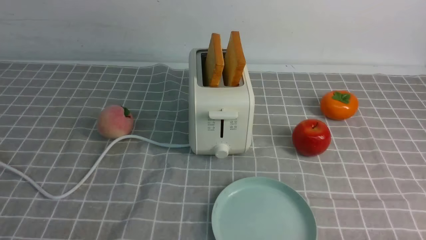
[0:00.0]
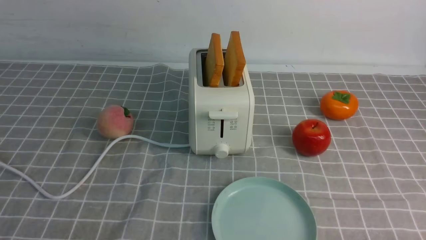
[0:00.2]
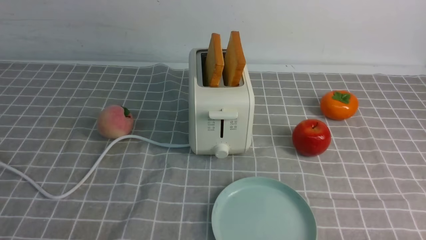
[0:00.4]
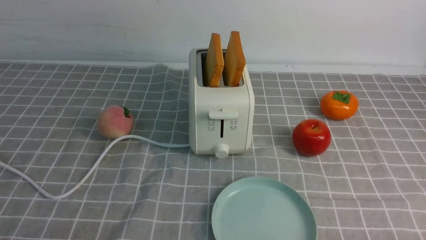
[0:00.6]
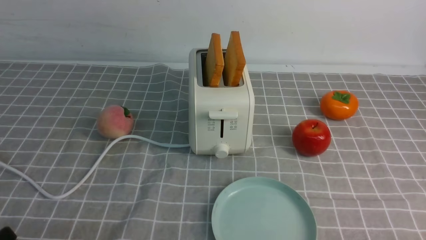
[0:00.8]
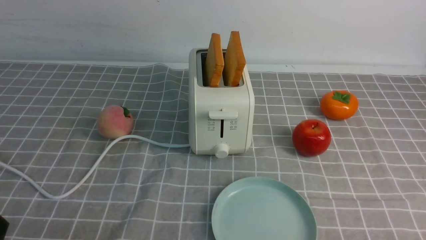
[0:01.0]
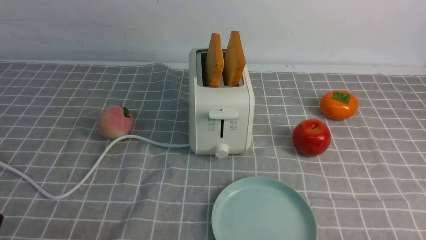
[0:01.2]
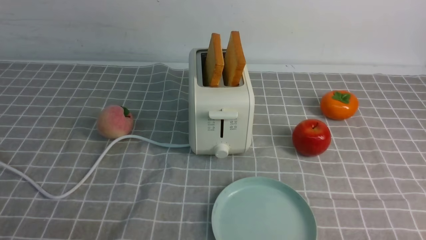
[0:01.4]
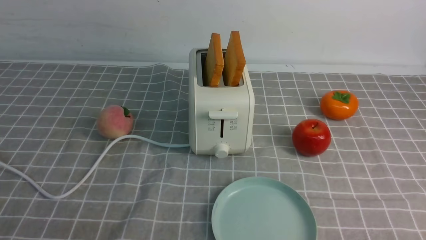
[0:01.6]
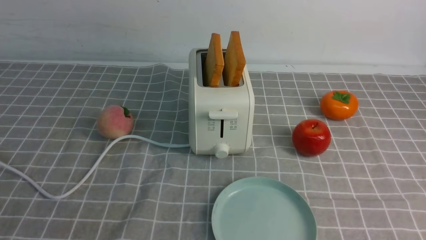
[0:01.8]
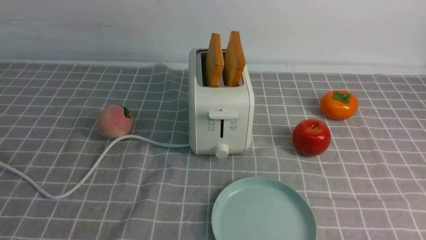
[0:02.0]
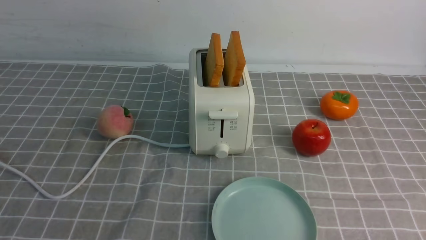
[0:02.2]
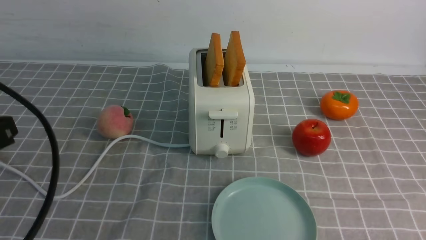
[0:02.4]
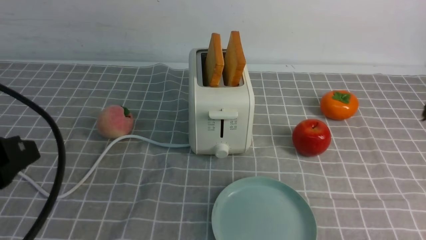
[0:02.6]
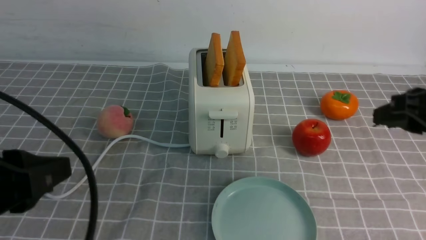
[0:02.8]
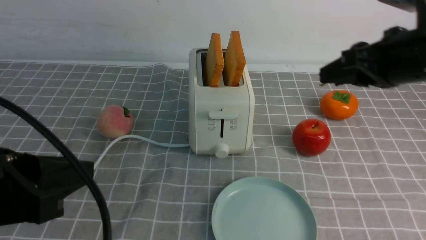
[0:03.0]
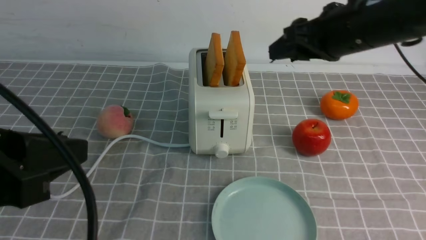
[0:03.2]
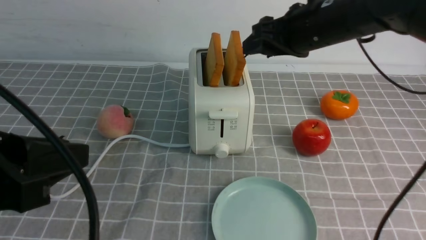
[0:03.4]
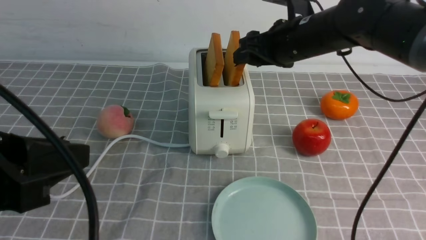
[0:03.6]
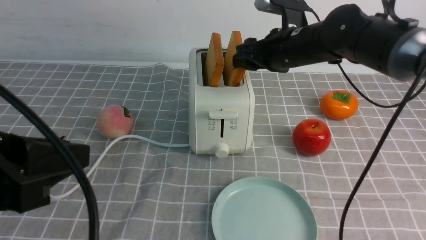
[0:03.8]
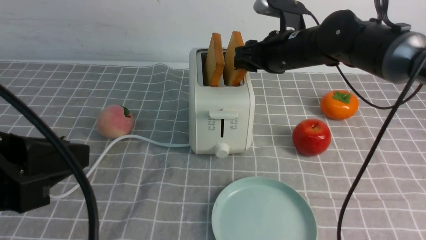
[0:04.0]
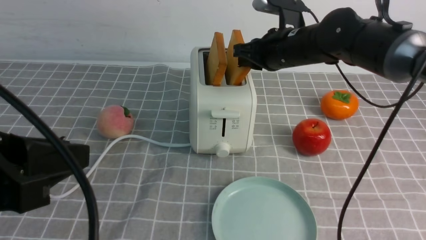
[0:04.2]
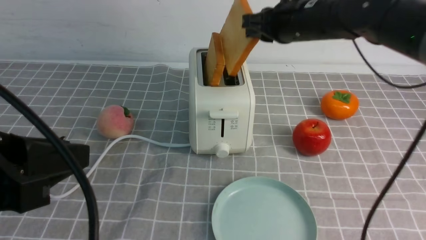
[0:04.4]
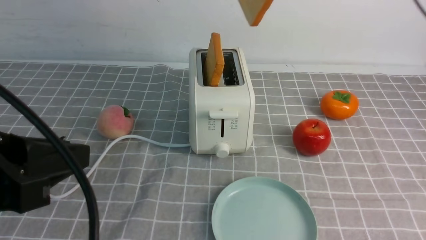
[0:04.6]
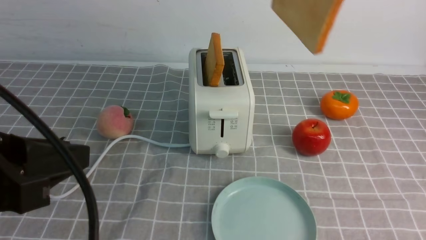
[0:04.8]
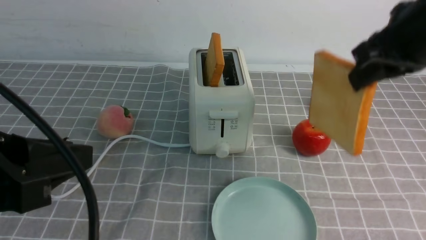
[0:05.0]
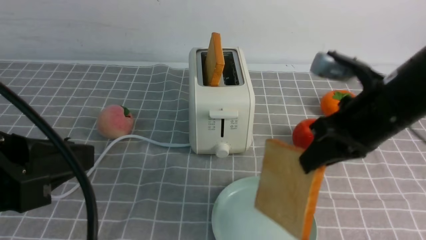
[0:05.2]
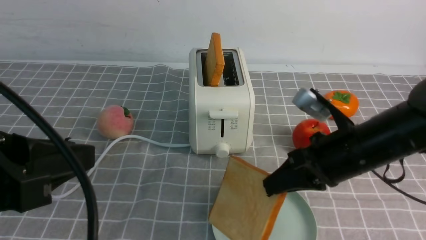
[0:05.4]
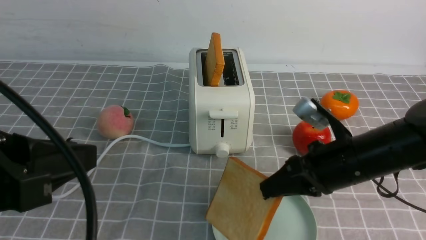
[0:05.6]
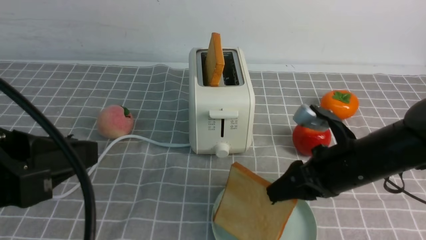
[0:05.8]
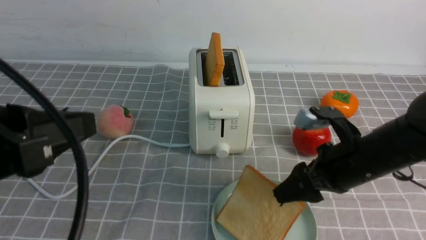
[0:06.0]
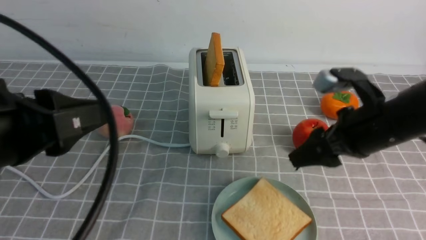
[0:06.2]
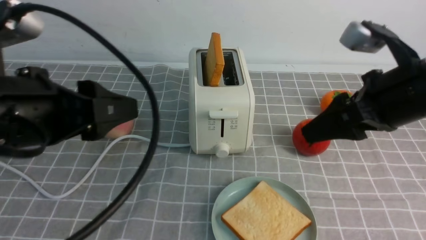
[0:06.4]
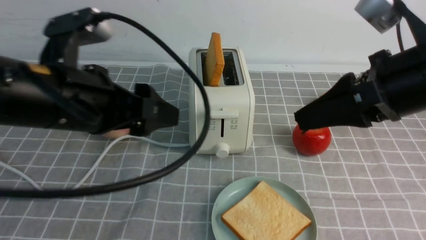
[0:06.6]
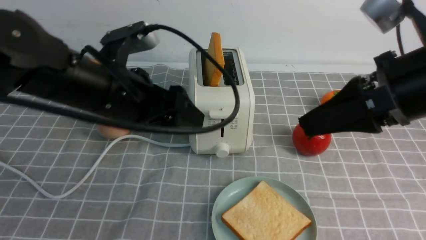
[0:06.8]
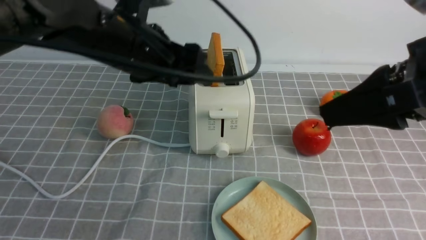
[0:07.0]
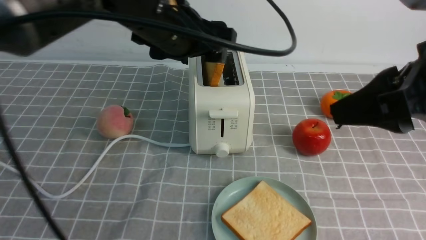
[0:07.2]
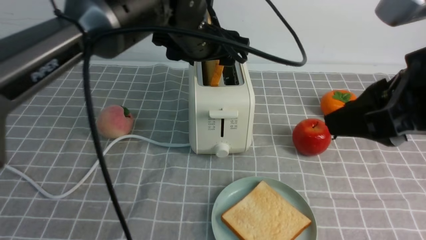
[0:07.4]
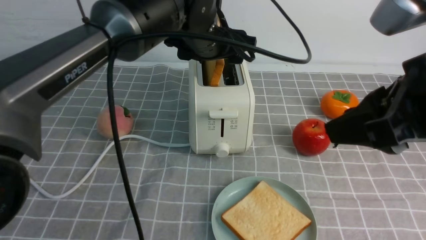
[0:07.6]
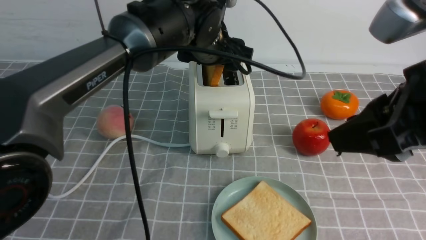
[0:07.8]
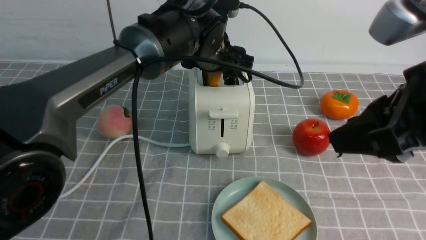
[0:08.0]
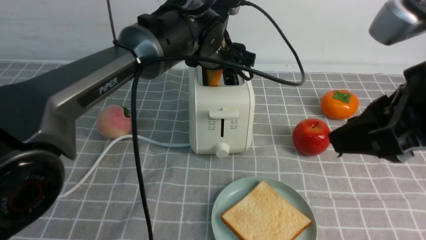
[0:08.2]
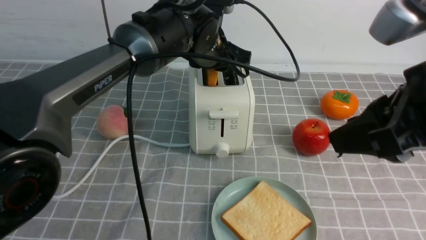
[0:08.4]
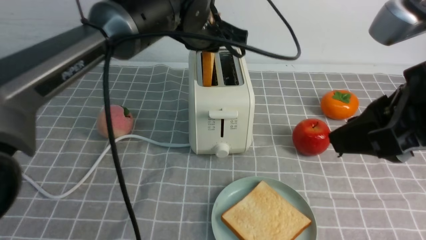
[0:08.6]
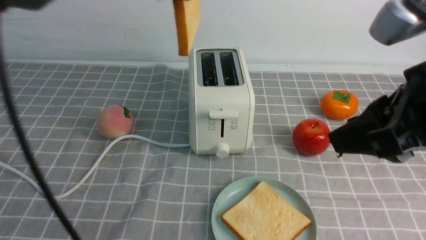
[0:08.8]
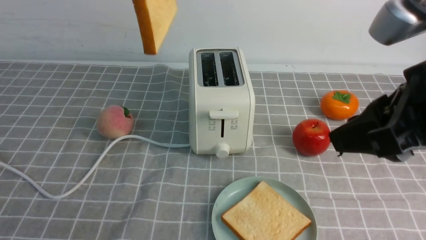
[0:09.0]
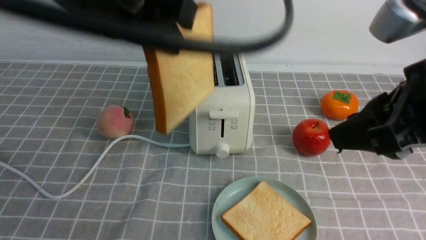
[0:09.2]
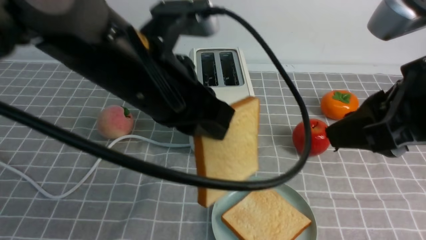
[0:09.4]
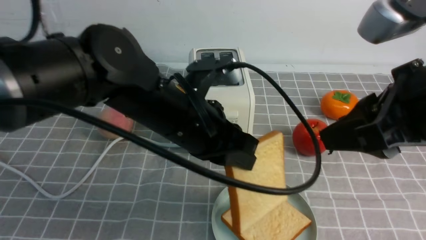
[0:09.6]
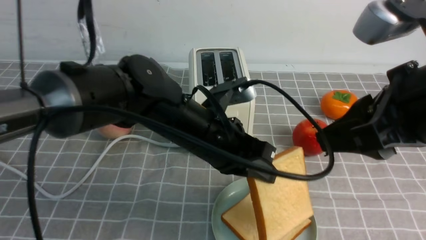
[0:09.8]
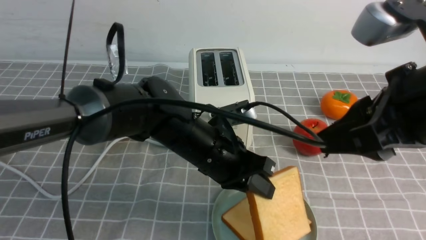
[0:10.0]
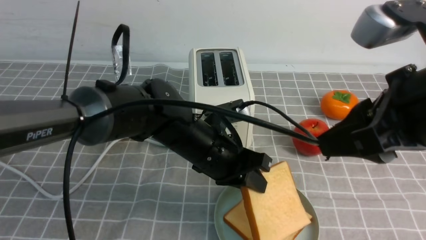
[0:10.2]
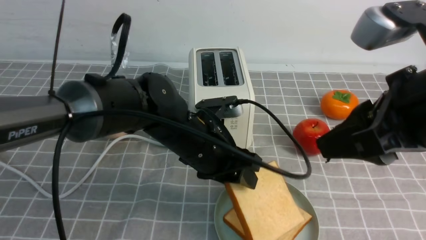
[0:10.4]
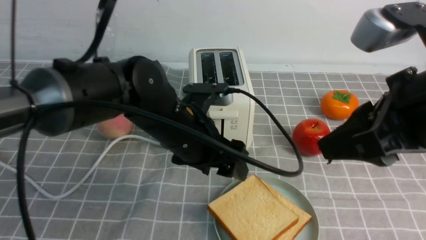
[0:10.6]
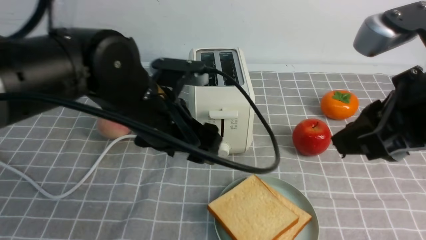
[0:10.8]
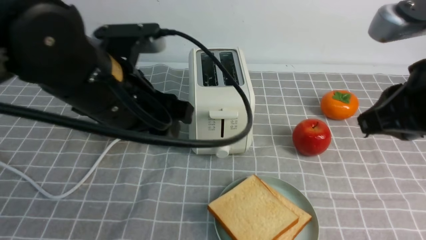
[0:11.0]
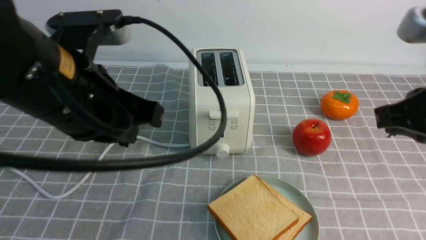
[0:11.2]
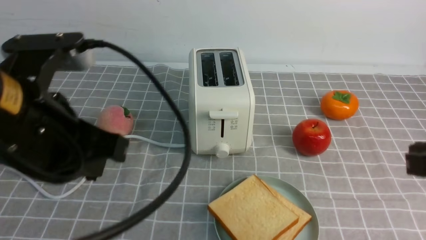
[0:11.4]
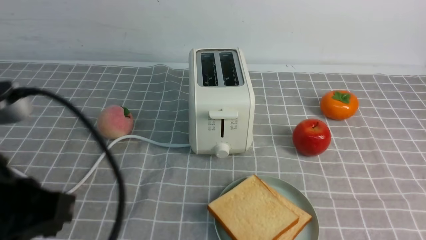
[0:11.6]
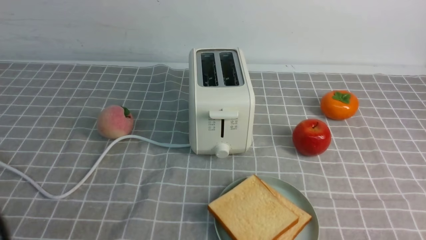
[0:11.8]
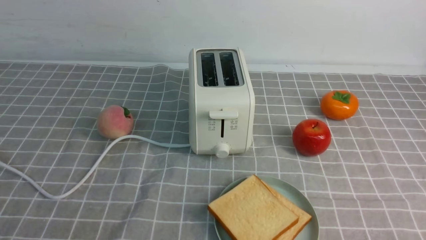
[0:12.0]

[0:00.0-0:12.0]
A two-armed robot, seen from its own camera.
Task of the whole recording: take toasted bread from bread machine on grey coffee table place on plate.
Step, 0:00.0 to 0:04.4: use the right arm to take out a slice of bread.
Step, 0:04.6 to 0:06.0: use the right arm to put a slice of bread into the plate.
Step, 0:06.2 to 0:08.8: use the left arm to take out a slice of bread.
Step, 0:09.0 to 0:10.8: use the left arm to put a slice of bread into the empty plate.
0:01.6 to 0:03.0: The right gripper is displaced forward and upward by approximately 30 cm; the left gripper moves upward, forward and to the right, some 10 cm.
0:03.0 to 0:04.4: The right gripper shifts approximately 15 cm forward and to the left, and closes its fingers.
0:04.4 to 0:06.0: The right gripper heads downward and backward, covering some 20 cm, and opens up.
0:06.0 to 0:07.6: The left gripper is displaced forward and to the right by some 35 cm, and opens; the right gripper heads upward and backward, covering approximately 20 cm.
0:07.6 to 0:09.0: The left gripper shifts about 20 cm upward, backward and to the left, and closes its fingers.
0:09.0 to 0:10.4: The left gripper is displaced downward by roughly 25 cm, and opens up.
0:10.4 to 0:12.0: The right gripper moves downward, to the right and backward, about 25 cm, and closes up; the left gripper shifts roughly 35 cm backward and to the left, and closes its fingers.

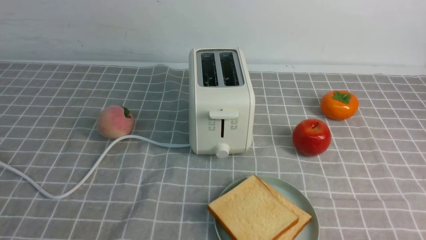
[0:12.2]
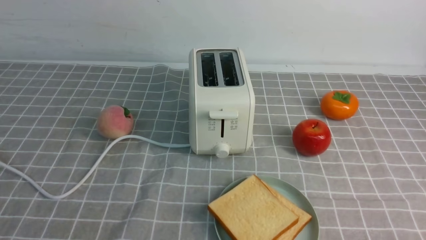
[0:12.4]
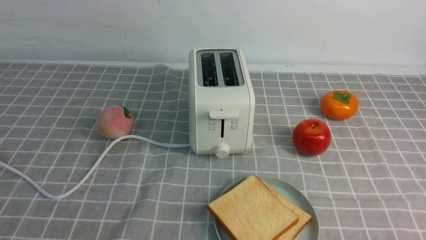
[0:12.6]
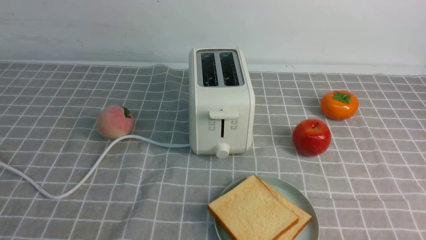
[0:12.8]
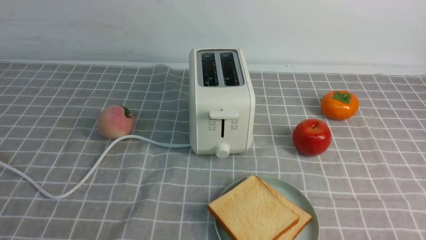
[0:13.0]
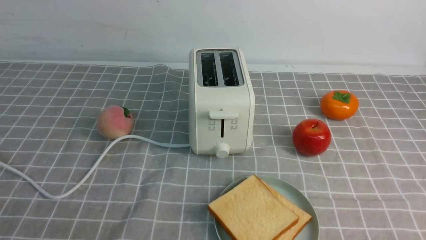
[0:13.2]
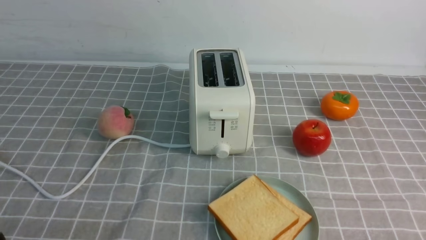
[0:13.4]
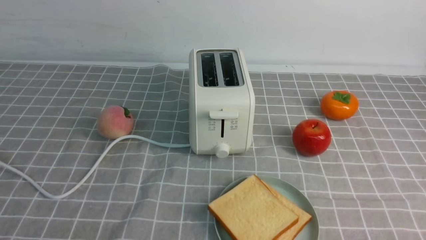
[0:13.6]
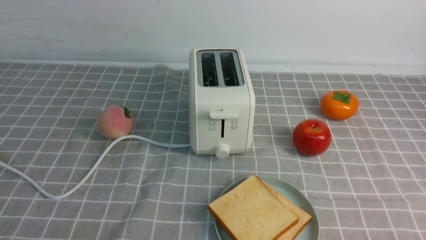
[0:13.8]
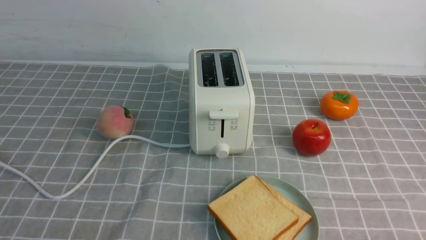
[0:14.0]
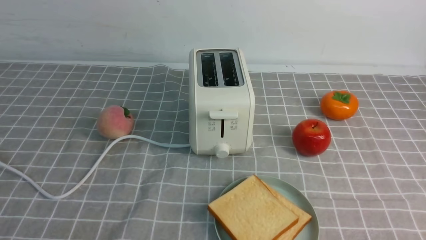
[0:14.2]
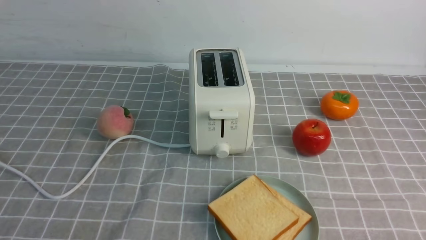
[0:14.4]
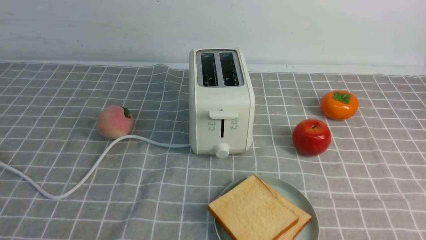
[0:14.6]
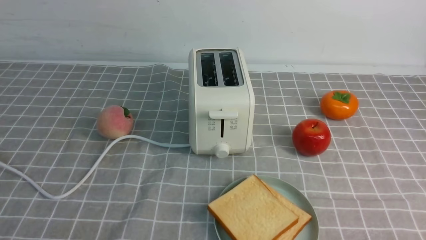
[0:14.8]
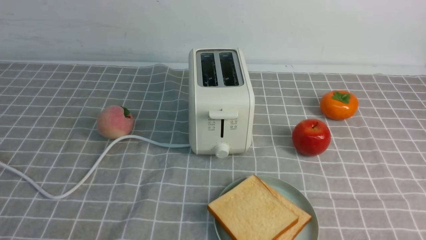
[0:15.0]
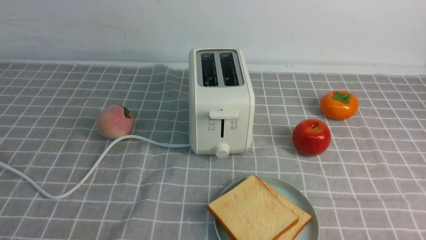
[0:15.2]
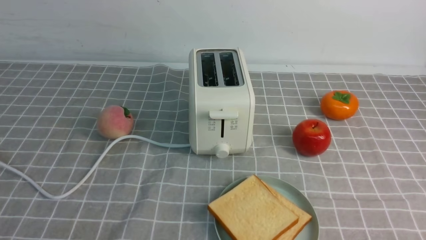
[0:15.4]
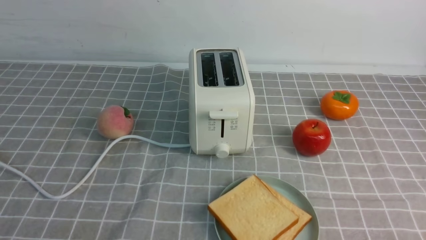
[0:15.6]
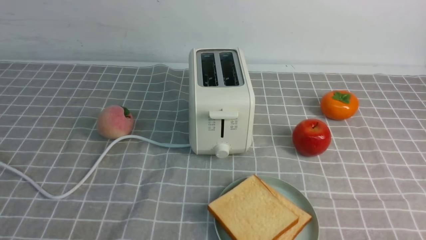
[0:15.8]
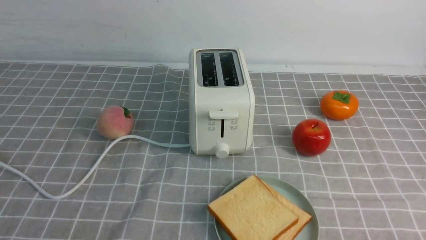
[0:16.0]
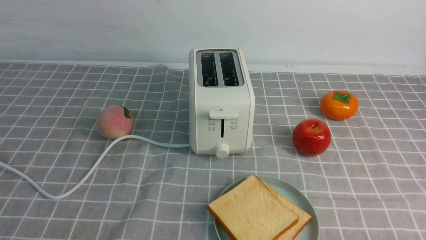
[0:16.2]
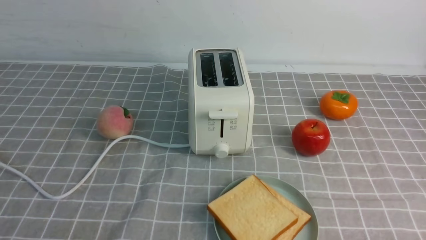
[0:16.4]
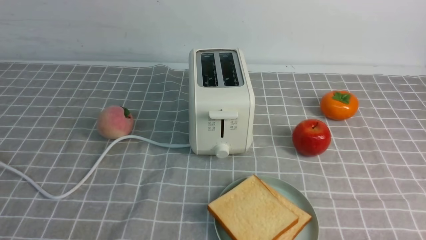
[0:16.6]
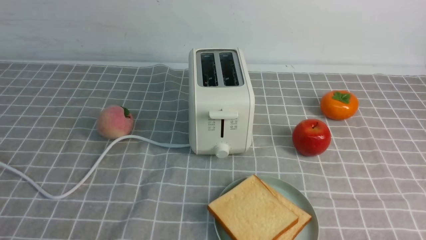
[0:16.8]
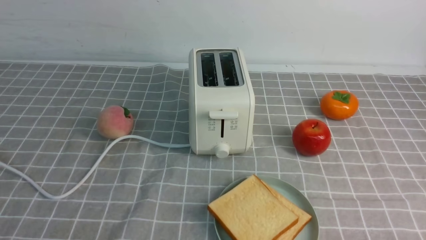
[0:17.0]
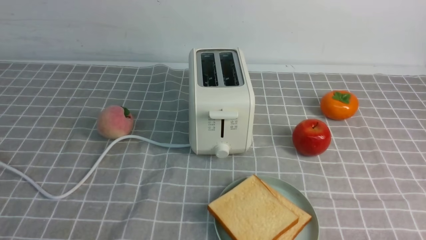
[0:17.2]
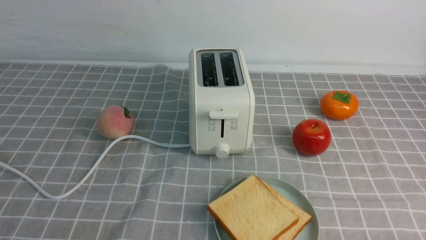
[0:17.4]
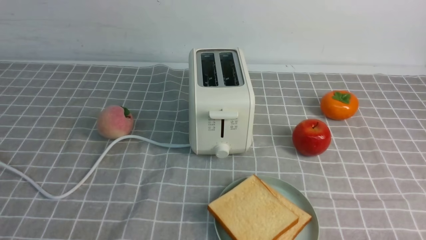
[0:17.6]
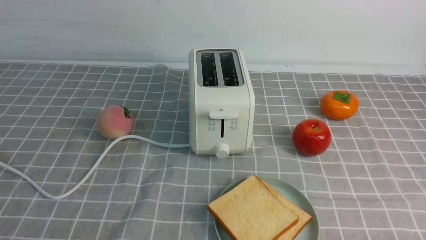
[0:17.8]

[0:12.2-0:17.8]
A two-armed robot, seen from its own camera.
Task of the whole recording: take toasted bread from bread machine on grey coffee table place on plate.
0:16.4 to 0:17.8: Both grippers stay about where they are.
